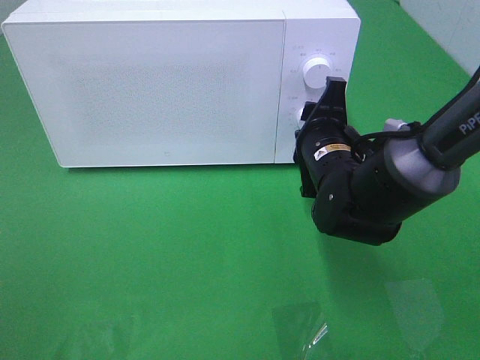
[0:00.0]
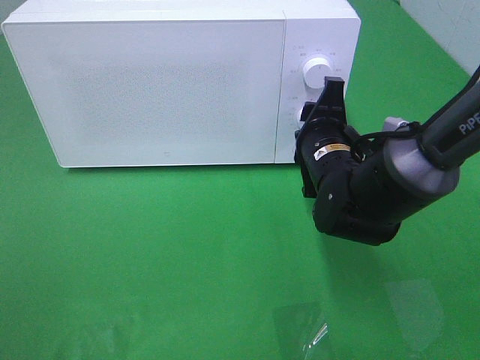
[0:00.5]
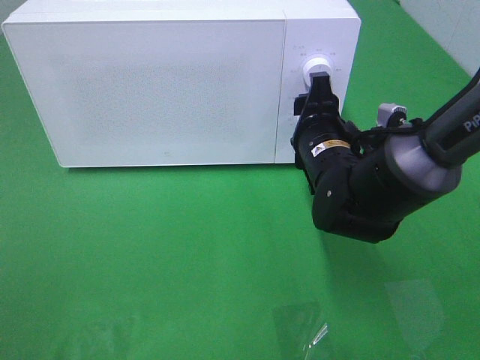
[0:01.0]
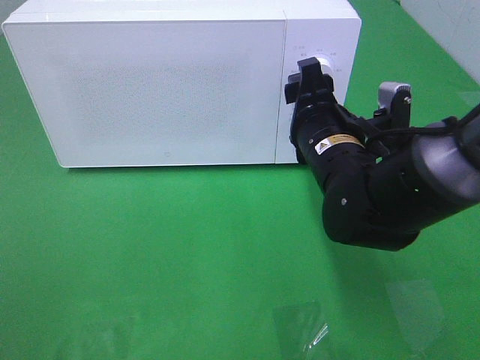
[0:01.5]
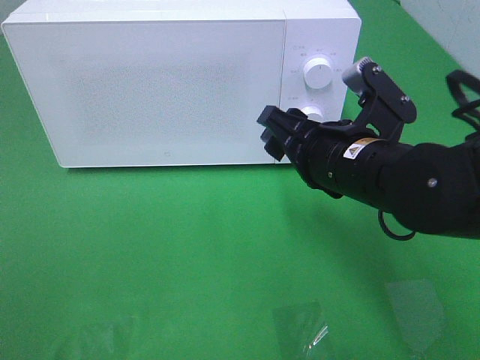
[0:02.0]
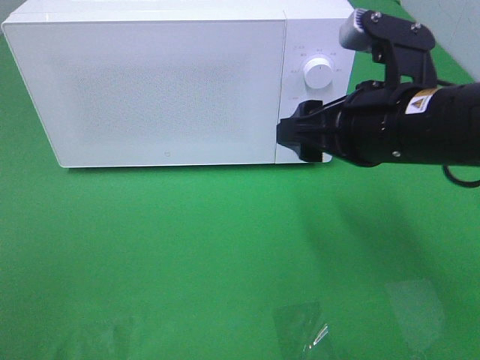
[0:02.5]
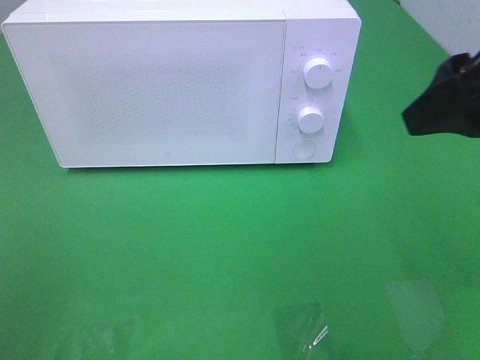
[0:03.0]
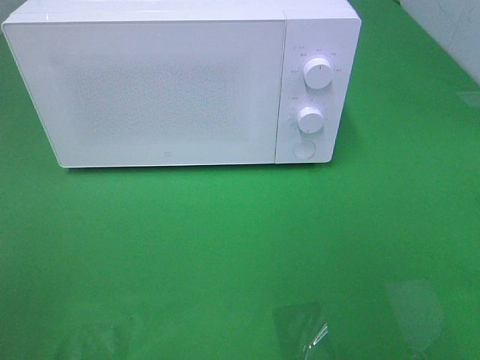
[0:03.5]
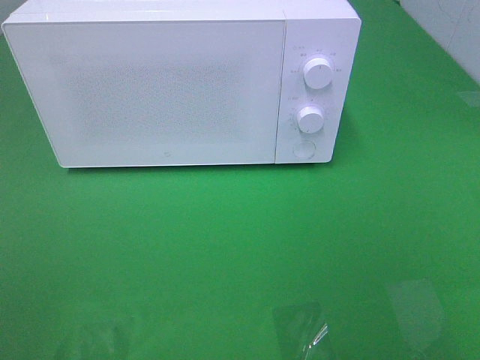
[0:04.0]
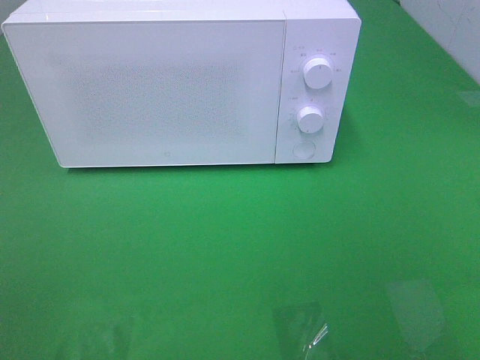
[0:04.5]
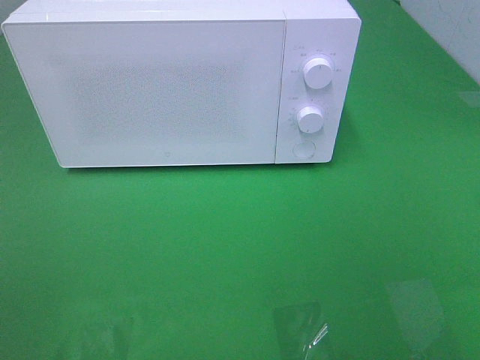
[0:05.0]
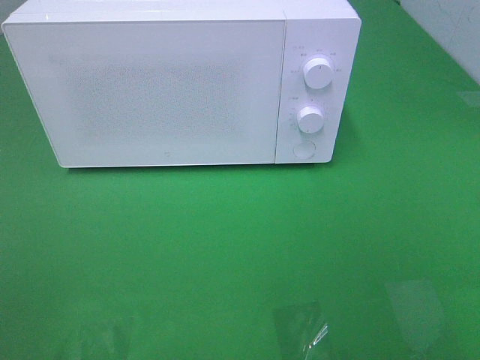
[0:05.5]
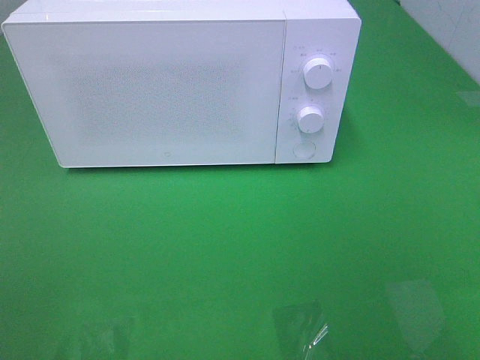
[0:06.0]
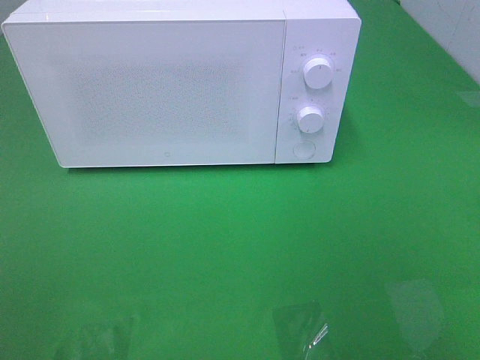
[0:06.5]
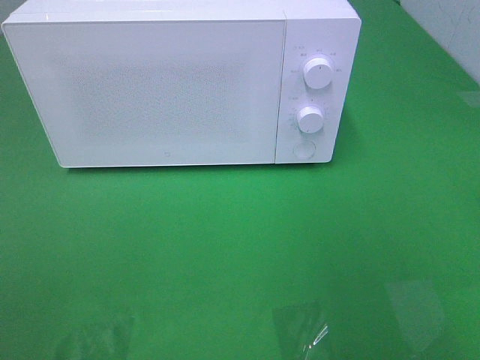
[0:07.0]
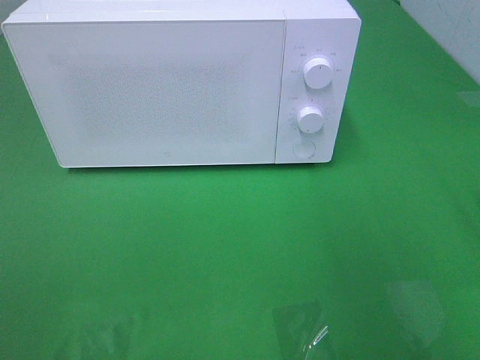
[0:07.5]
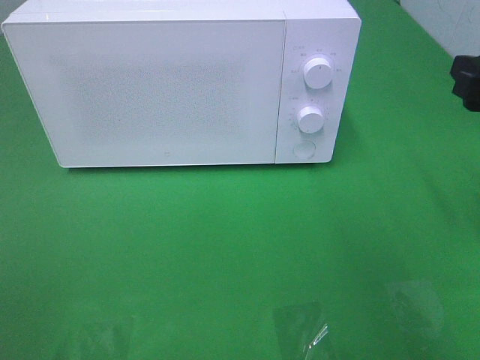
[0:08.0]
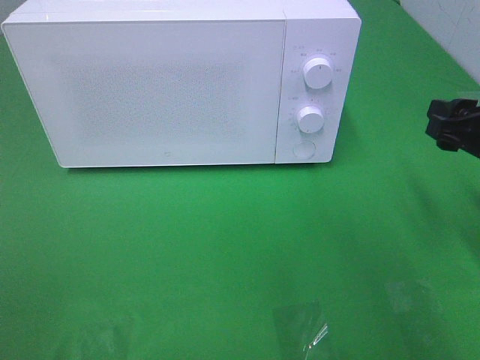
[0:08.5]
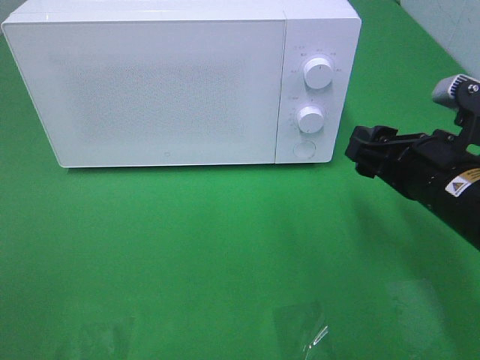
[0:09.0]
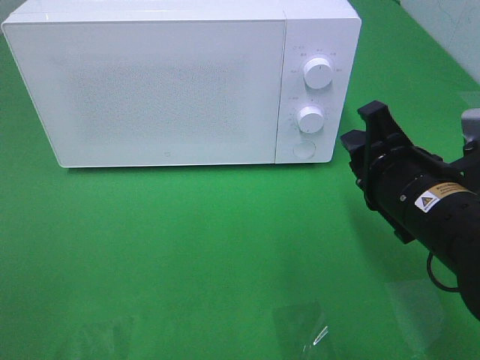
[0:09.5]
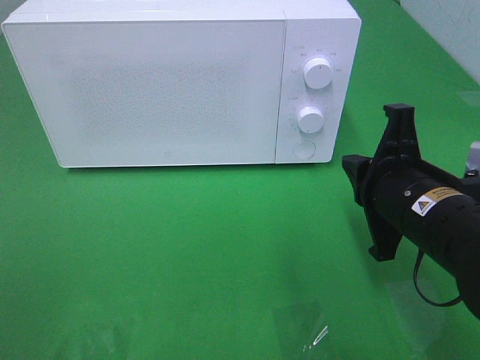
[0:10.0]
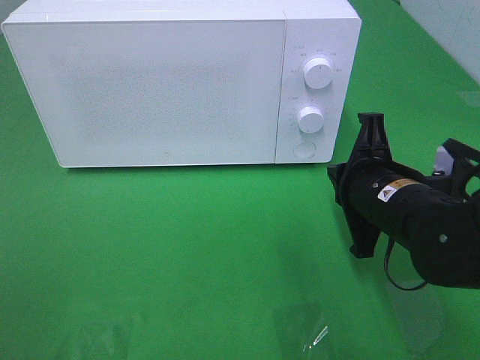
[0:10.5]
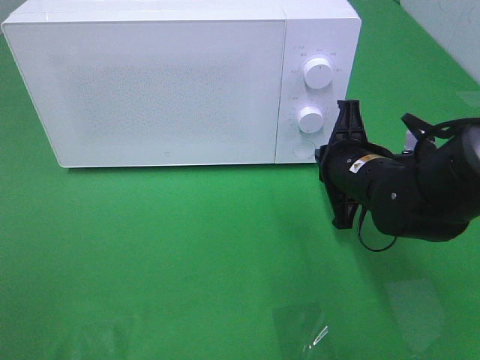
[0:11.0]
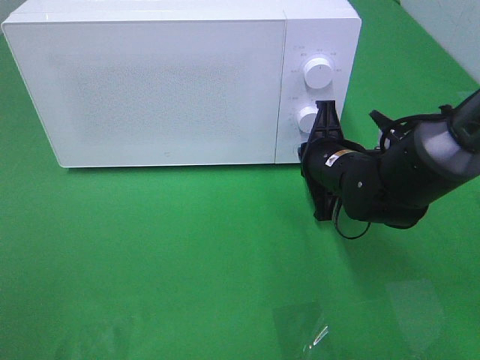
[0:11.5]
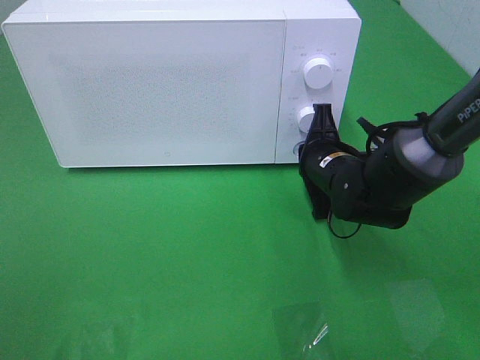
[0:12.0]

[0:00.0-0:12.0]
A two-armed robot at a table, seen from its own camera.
Task of the whole recording: Heat the burger.
0.0 to 2.0 s: The right gripper is displaced backward and upward by roughly 10 cm.
2.0 to 4.0 s: The right gripper goes approximately 35 cm backward, to the right and upward.
6.0 to 8.0 s: The right gripper moves forward, approximately 20 cm.
8.0 to 10.0 s: The right gripper shifts approximately 15 cm to the left and downward, and closes.
10.0 to 12.0 s: The right gripper travels forward and downward by approximately 15 cm.

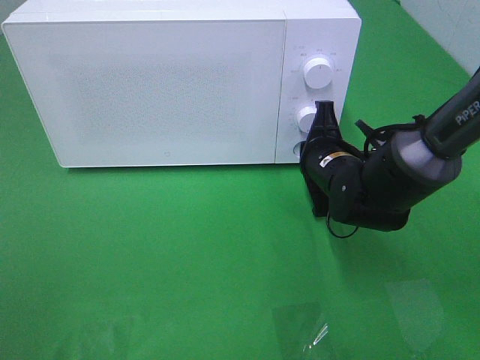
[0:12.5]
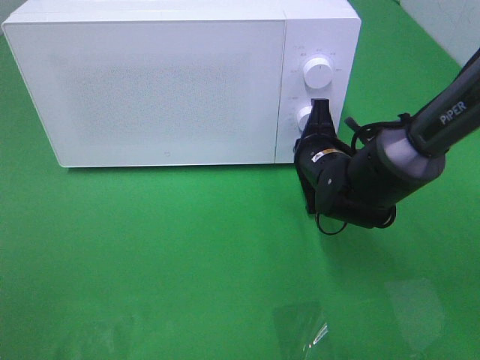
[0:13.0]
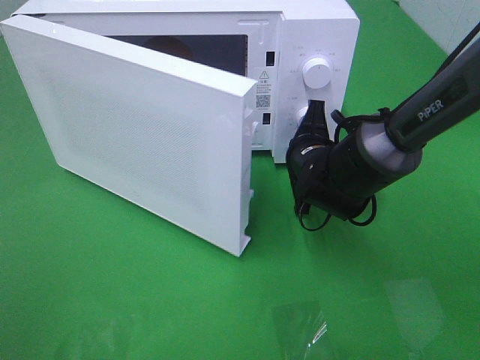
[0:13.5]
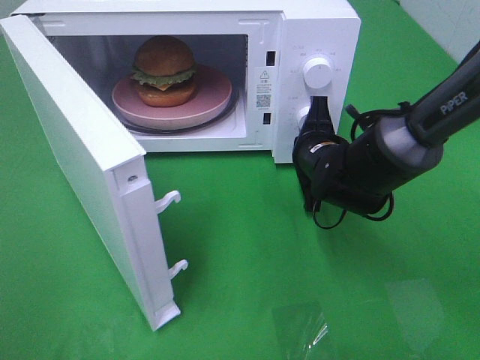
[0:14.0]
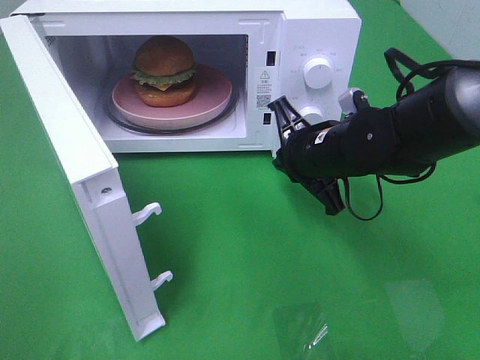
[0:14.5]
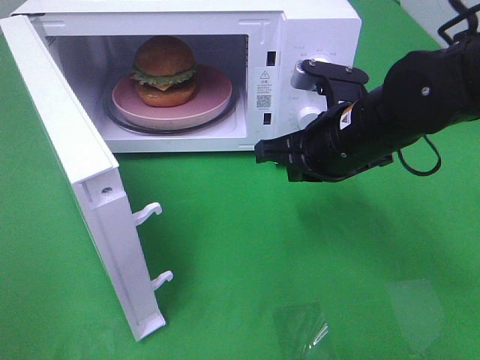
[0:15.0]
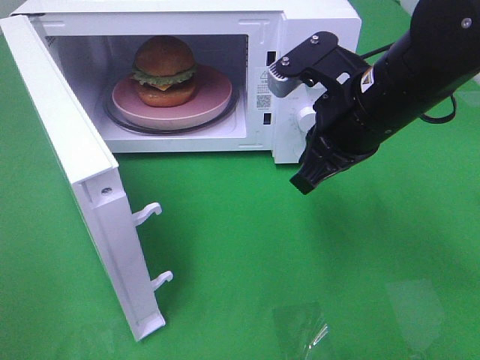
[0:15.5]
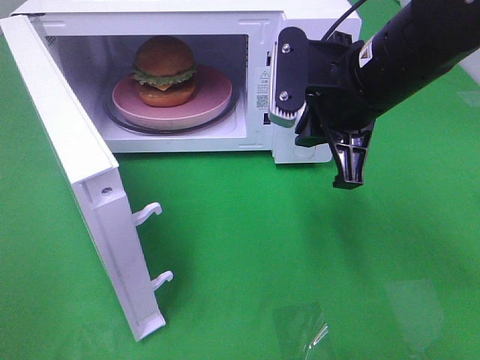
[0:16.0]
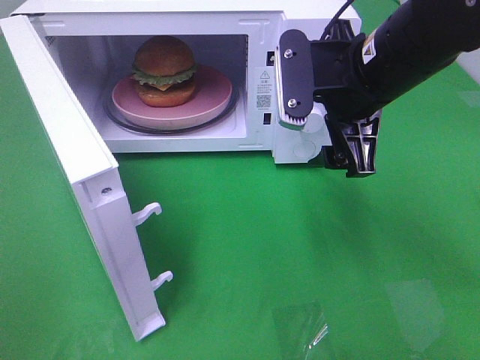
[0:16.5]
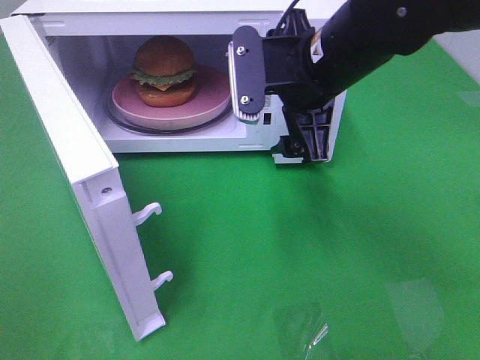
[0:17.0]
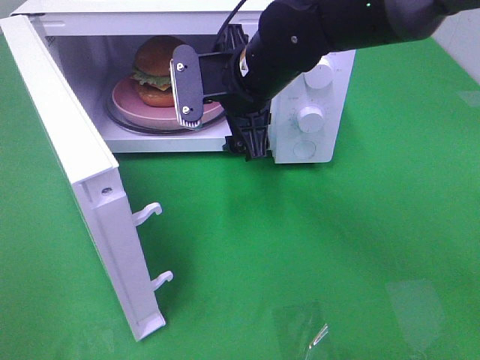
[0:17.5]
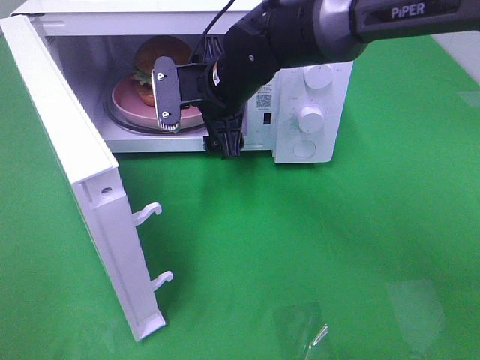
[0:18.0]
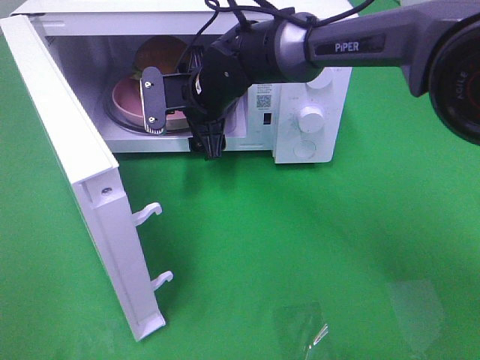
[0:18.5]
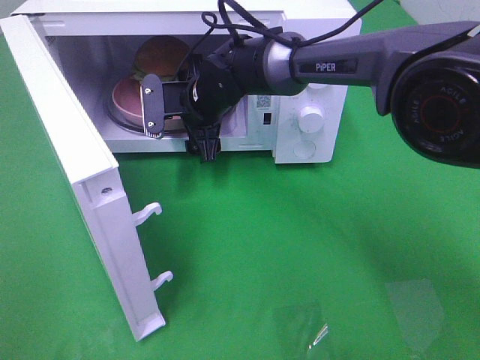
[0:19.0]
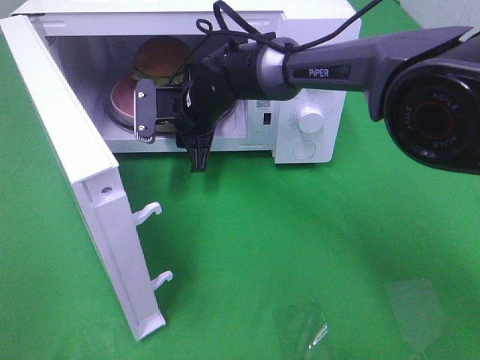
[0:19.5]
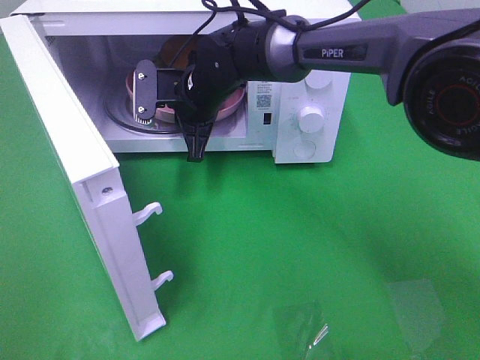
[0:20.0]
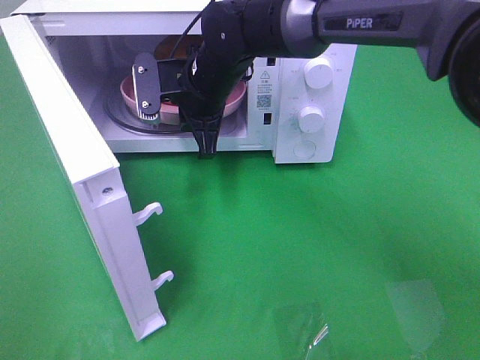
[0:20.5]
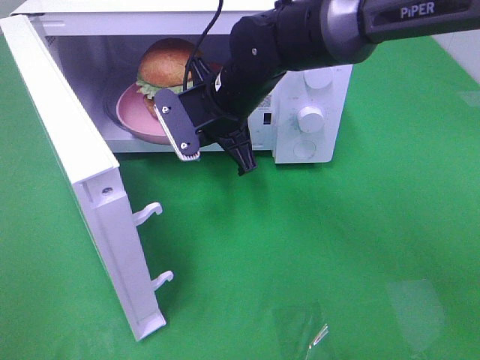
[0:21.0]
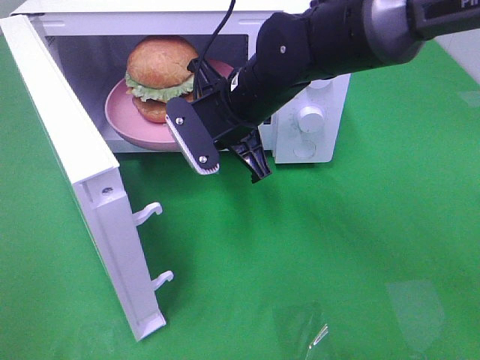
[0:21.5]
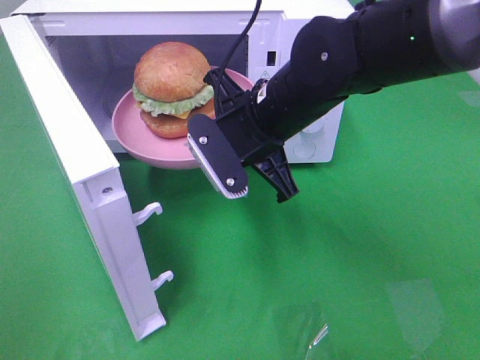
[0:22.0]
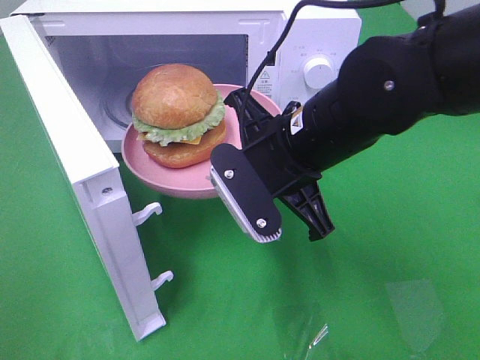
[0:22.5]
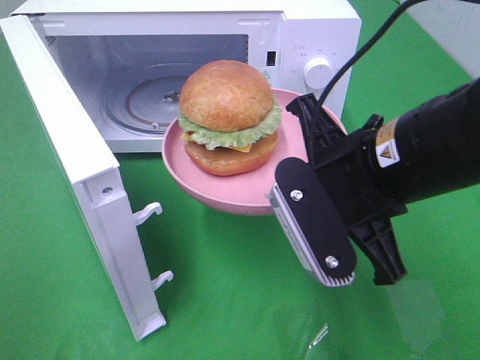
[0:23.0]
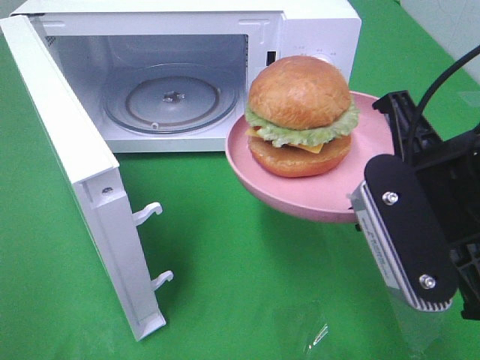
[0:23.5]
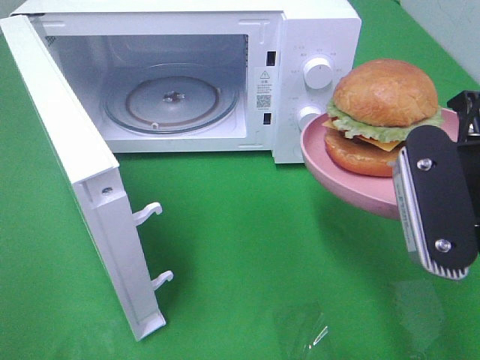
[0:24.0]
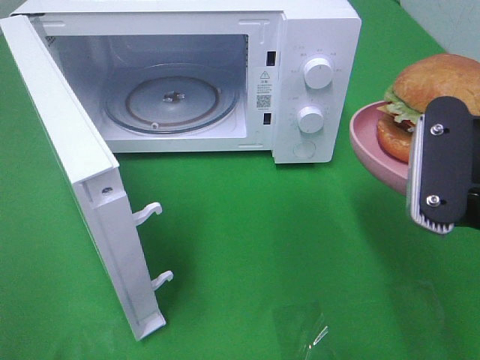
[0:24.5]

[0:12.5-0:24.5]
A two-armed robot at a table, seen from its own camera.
Task of the whole recording: Heat the burger.
Step, 14.5 to 19.5 s: Right hand: grab the plate with the hamburger.
14.5 to 16.5 s: The right gripper goes roughly 10 cm upward, and opens up.
16.5 to 18.5 s: The right gripper heads to the left, forward and downward, covering about 20 cm.
18.5 to 20.5 s: The right gripper closes up.
20.5 to 22.5 s: The right gripper moves backward and to the right, about 20 cm.
22.5 to 24.5 s: The right gripper shifts about 15 cm to the right, backward and upward.

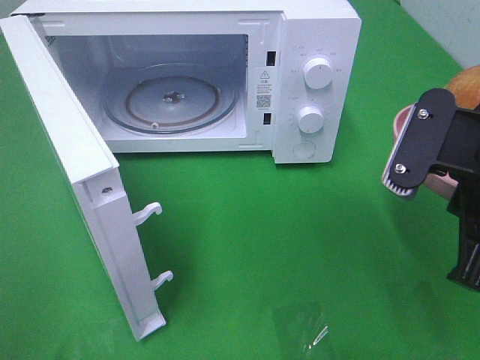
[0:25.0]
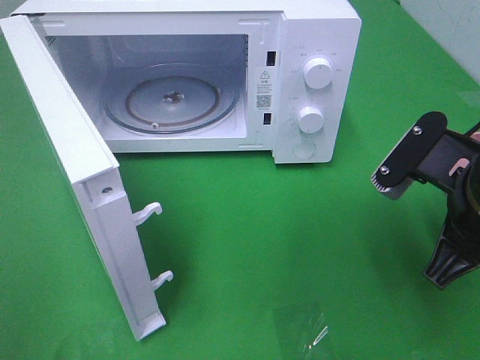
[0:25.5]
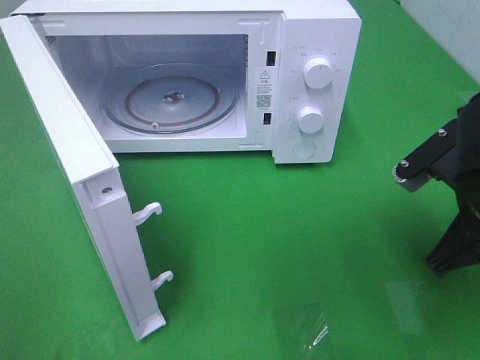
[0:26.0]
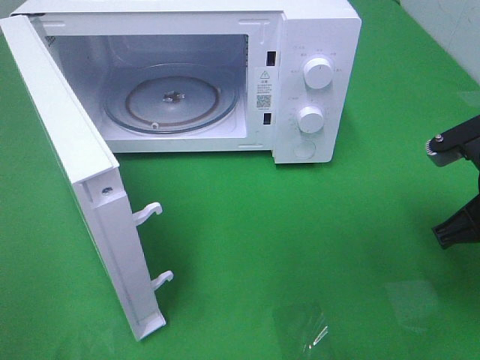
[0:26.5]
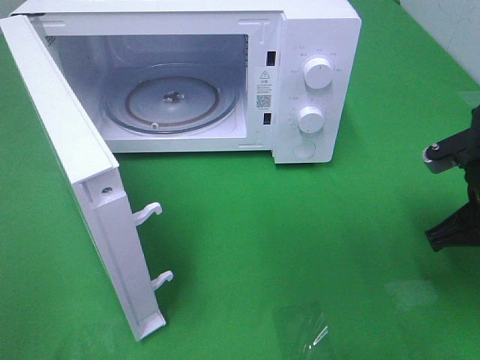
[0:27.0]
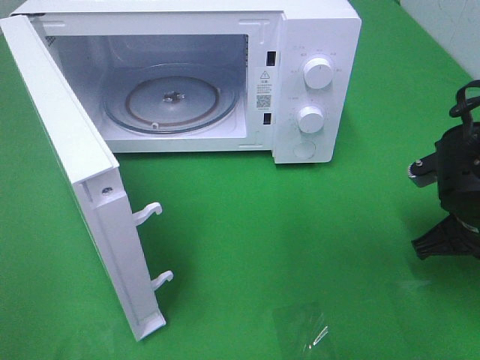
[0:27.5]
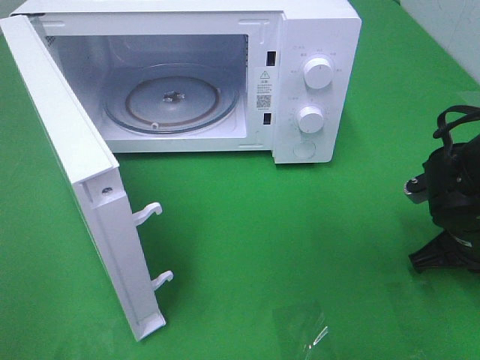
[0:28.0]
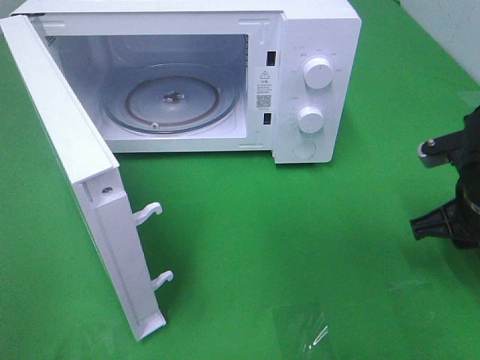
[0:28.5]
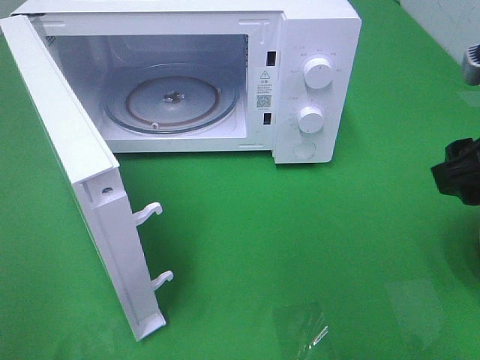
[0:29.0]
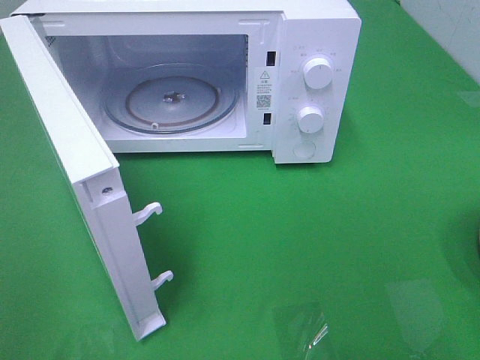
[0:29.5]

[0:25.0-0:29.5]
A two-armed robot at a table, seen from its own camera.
Task of the whole recording: Heat the burger.
Step, 25.0 to 28.0 s: Right hand: place the plate on the table.
25.0 to 27.0 s: The right gripper moves downward, forward and to the right, some 10 cm.
27.0 to 29.5 s: The right gripper goes approximately 20 cm upward and backward, and opens.
